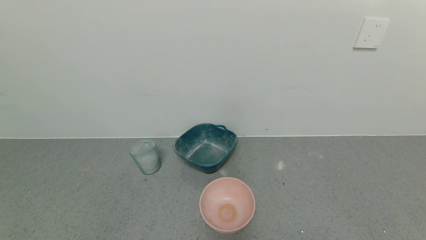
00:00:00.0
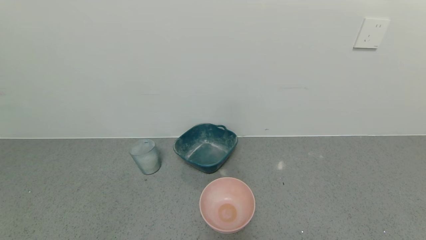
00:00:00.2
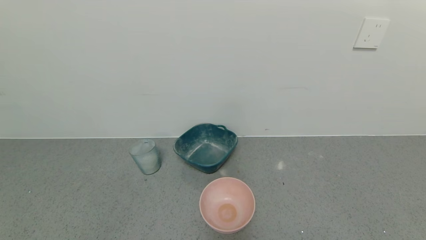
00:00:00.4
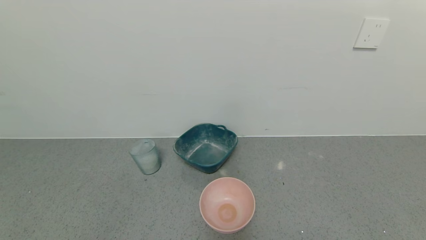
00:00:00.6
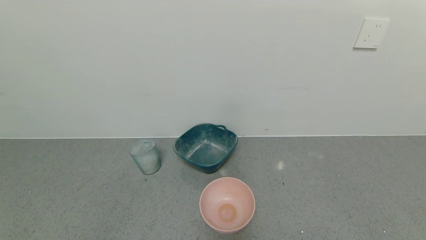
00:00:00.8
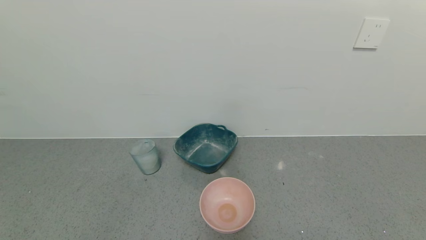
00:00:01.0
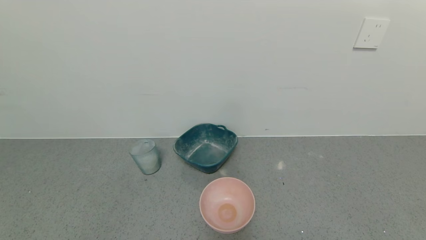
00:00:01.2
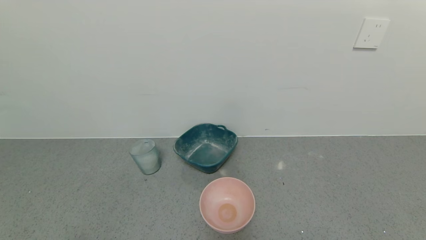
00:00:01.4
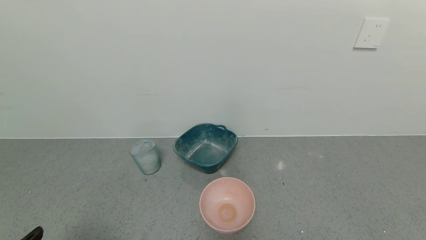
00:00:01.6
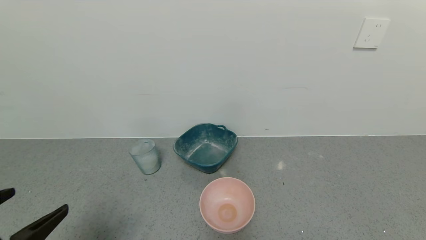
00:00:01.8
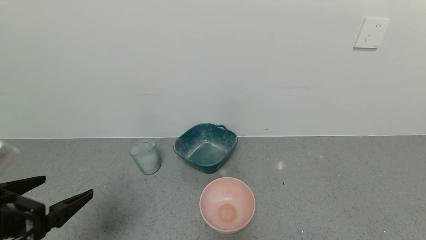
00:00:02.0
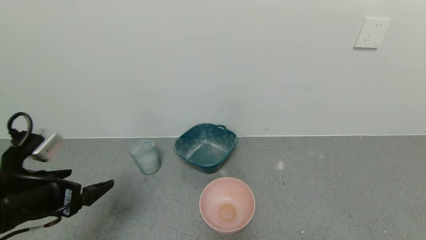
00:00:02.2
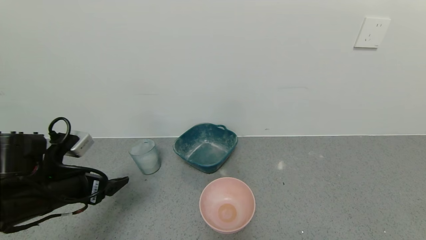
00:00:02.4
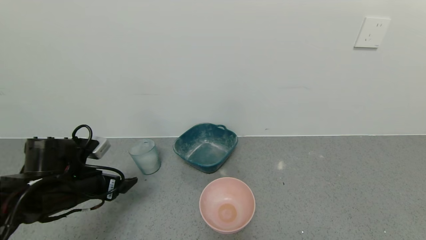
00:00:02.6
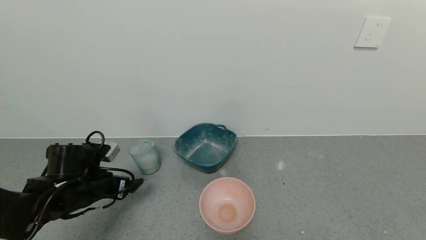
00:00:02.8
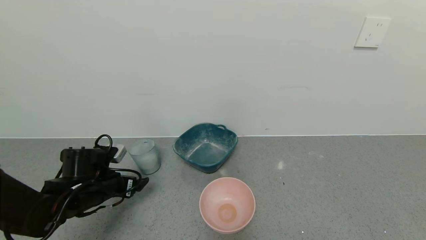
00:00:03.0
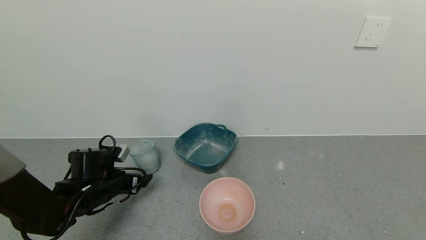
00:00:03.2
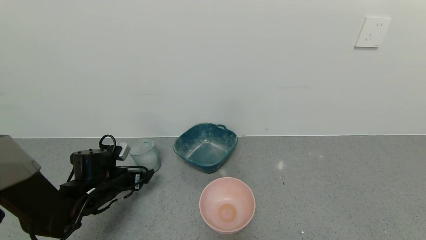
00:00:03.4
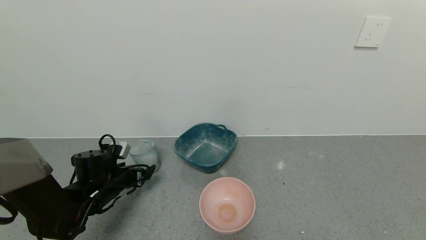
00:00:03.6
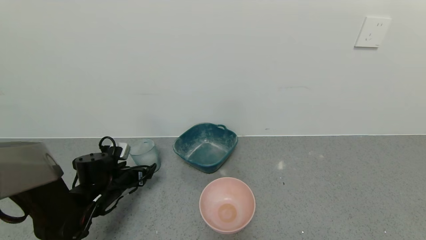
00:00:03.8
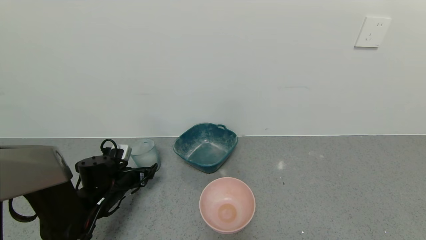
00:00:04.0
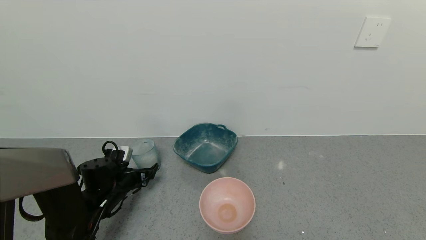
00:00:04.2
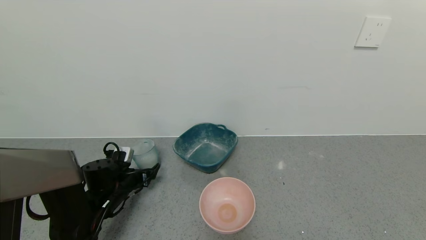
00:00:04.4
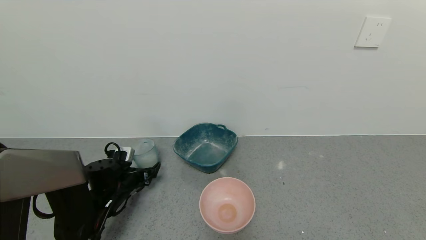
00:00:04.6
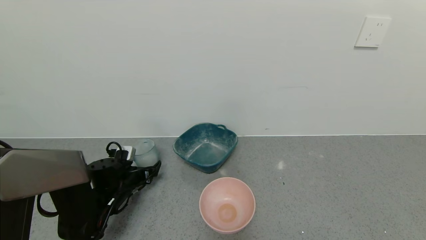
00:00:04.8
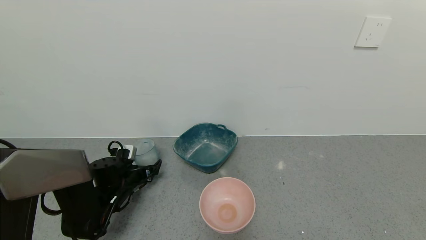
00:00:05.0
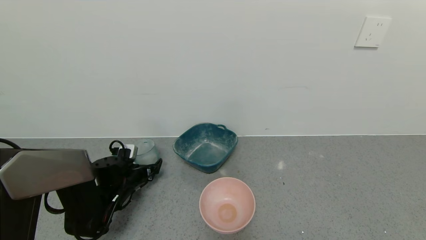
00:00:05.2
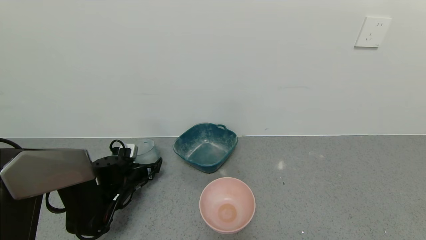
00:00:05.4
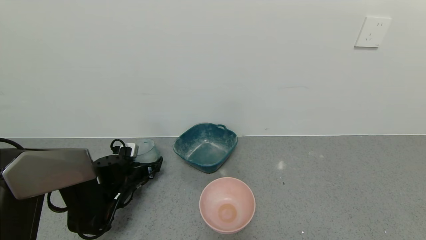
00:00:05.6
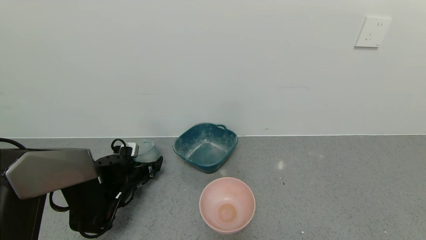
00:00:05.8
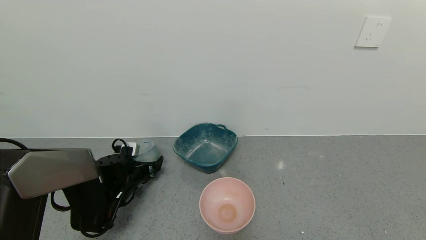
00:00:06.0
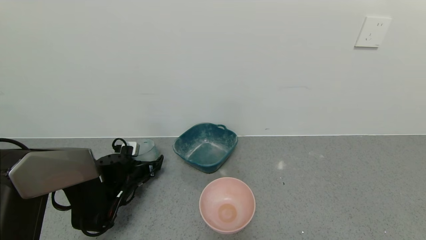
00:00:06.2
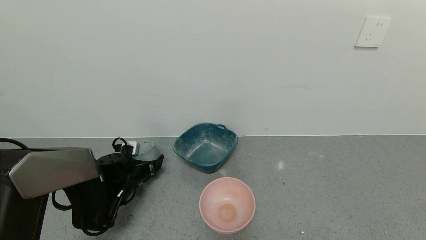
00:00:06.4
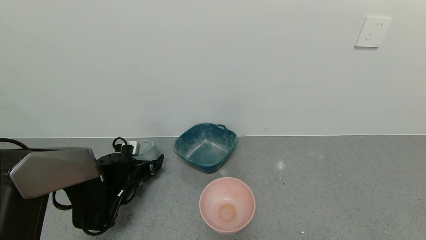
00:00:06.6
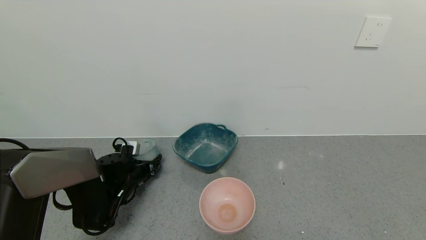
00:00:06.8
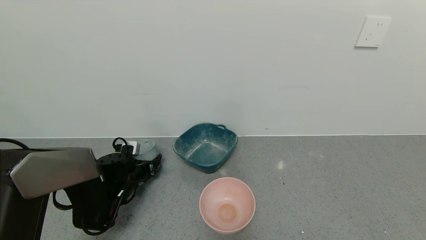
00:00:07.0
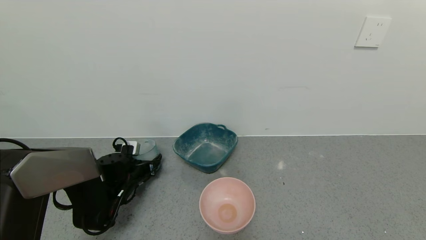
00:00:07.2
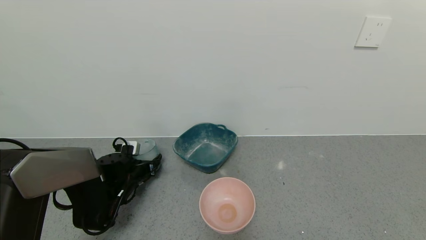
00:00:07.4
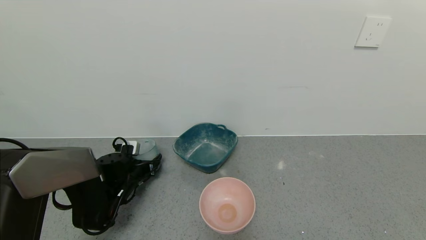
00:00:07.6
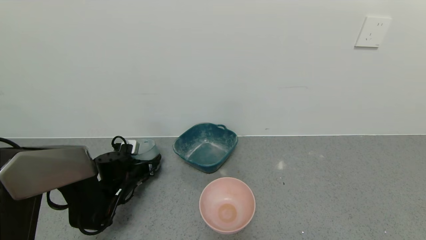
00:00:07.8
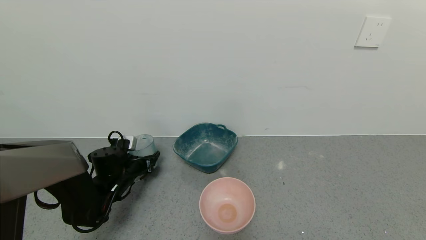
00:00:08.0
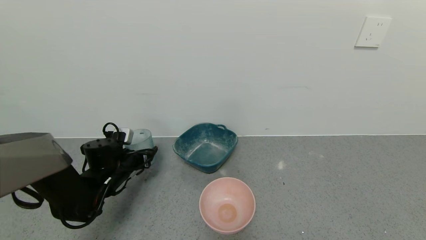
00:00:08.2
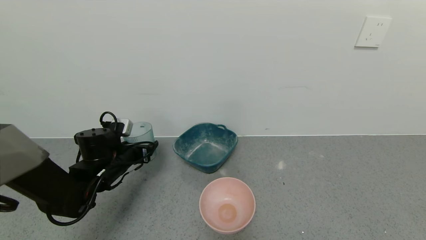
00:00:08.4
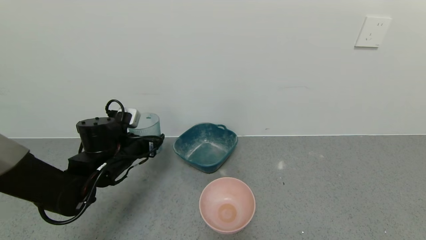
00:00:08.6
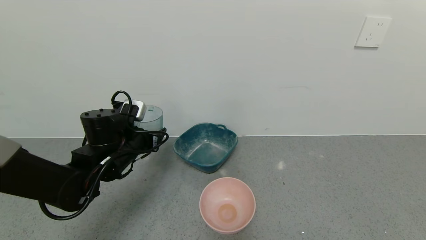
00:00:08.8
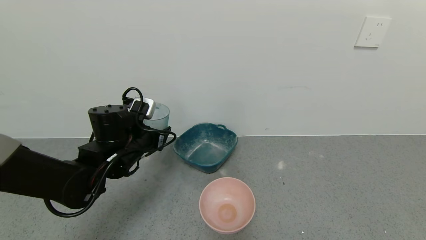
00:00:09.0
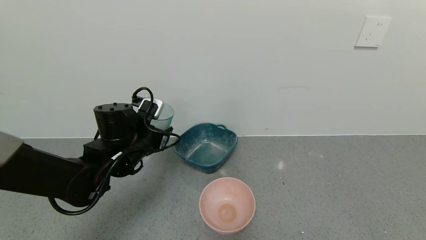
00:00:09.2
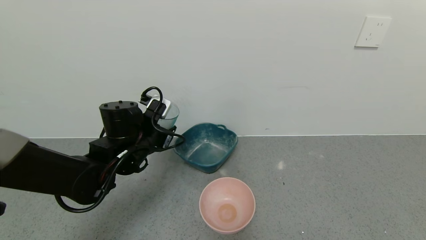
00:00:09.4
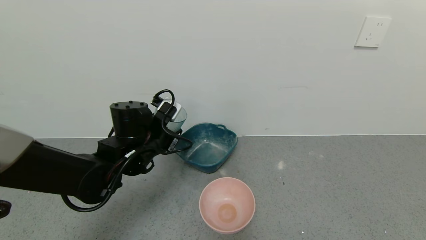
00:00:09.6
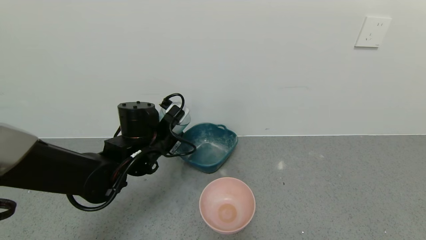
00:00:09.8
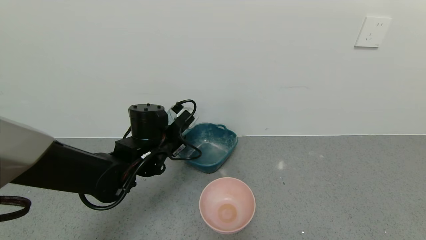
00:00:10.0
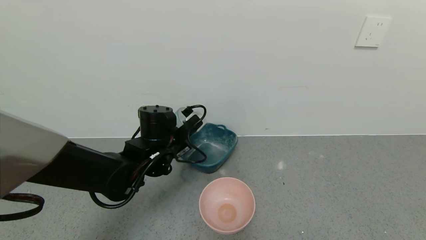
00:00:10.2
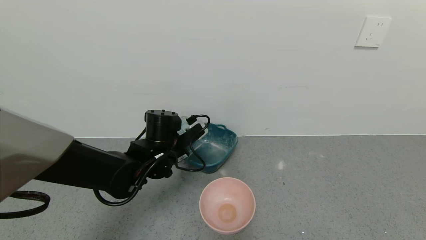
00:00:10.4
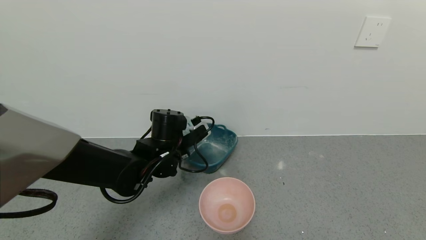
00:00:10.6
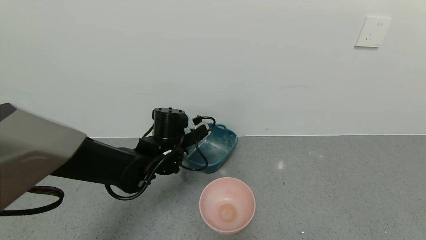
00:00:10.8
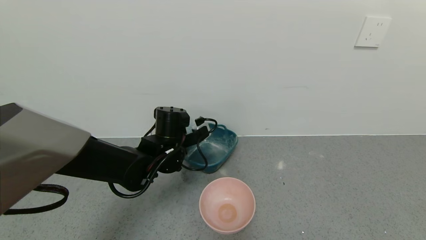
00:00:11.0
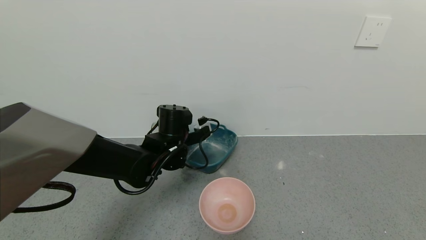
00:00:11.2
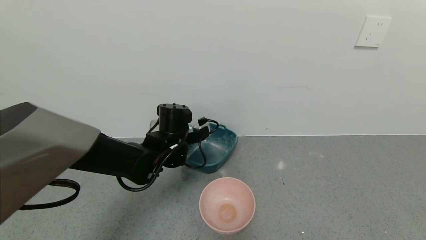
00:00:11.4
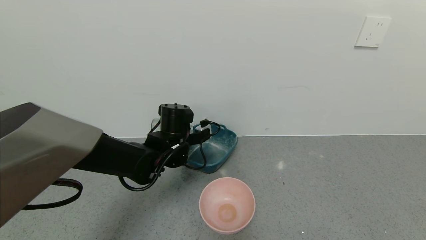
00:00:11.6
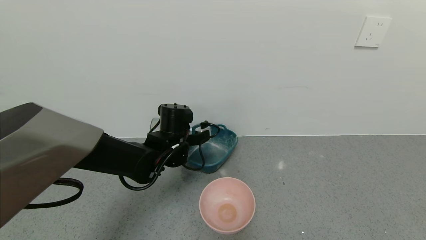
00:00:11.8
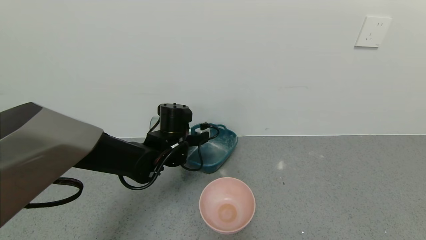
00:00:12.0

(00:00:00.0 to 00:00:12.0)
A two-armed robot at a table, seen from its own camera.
Task of the whole recording: use a gripper to pick up the cup and pour the powder into a bowl or tray.
Step, 00:00:00.0 - 00:00:07.0: Grasp the glass of powder with the left gripper.
00:00:01.6 - 00:00:03.0: The left gripper is displaced forward and downward by about 30 cm.
00:00:03.0 - 00:00:04.4: The left gripper is displaced downward by approximately 5 cm.
00:00:04.4 - 00:00:06.0: There are only small adjustments of the grippers.
00:00:06.0 - 00:00:07.6: The left gripper closes up.
00:00:07.6 - 00:00:09.0: The left gripper goes approximately 15 cm upward and to the right.
00:00:09.0 - 00:00:10.4: The left gripper travels to the right by about 5 cm.

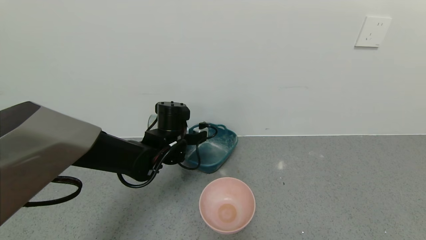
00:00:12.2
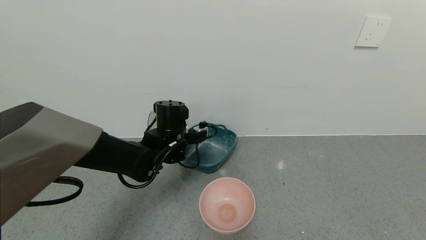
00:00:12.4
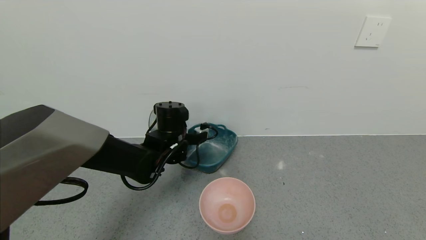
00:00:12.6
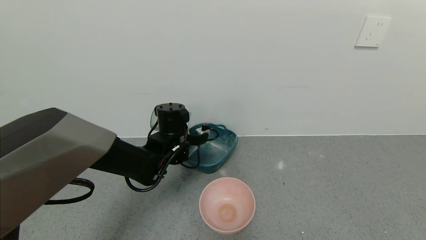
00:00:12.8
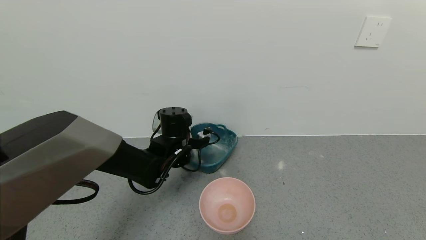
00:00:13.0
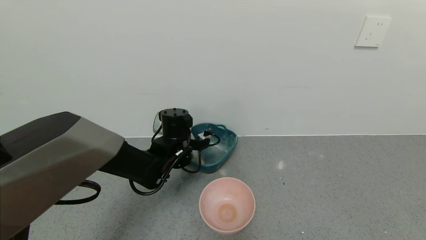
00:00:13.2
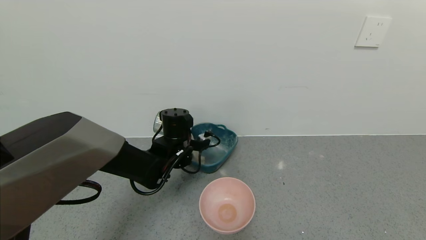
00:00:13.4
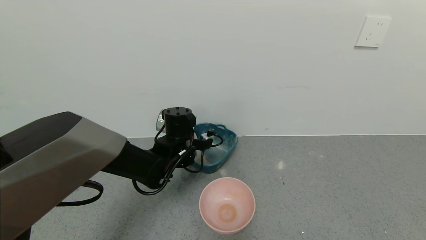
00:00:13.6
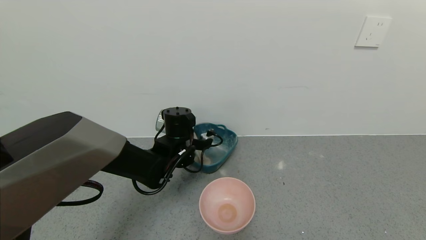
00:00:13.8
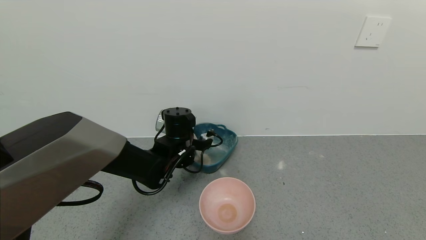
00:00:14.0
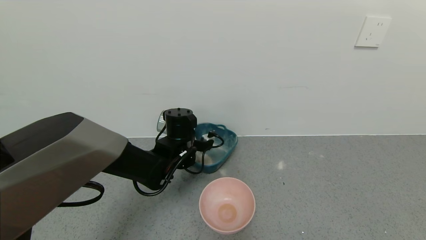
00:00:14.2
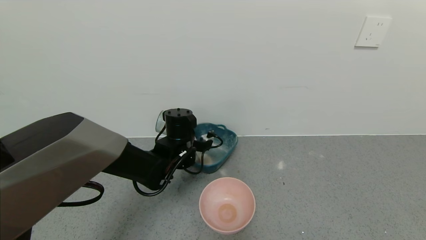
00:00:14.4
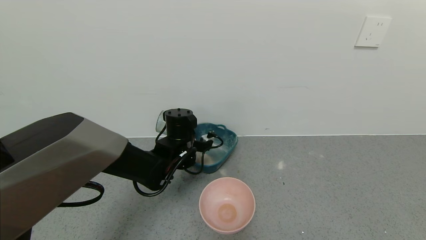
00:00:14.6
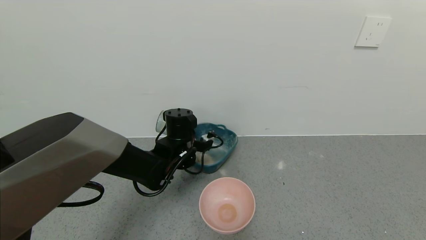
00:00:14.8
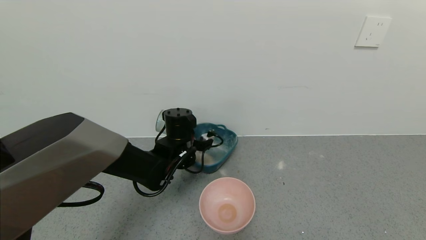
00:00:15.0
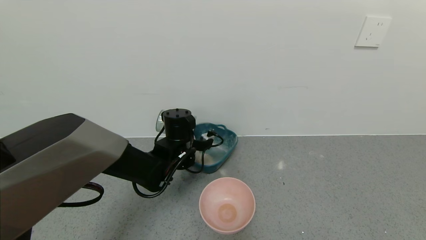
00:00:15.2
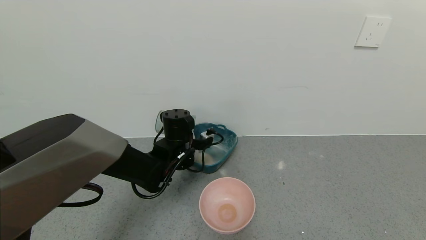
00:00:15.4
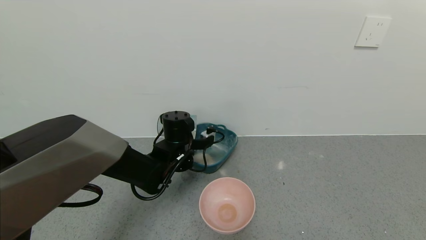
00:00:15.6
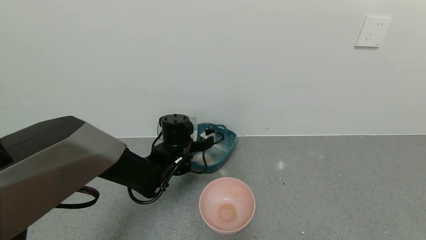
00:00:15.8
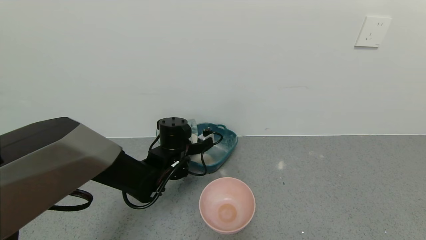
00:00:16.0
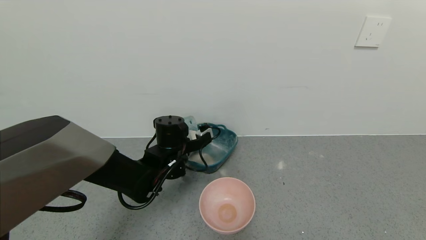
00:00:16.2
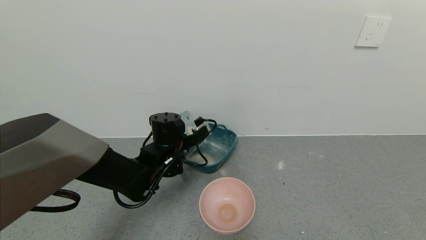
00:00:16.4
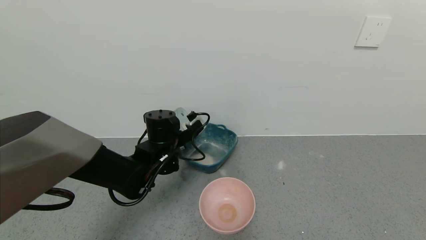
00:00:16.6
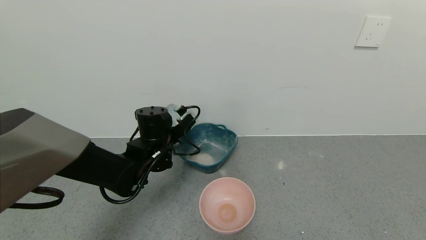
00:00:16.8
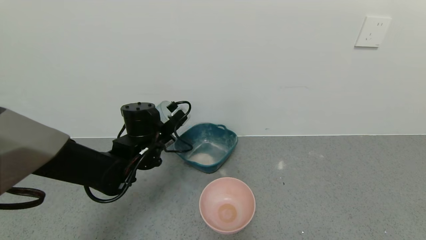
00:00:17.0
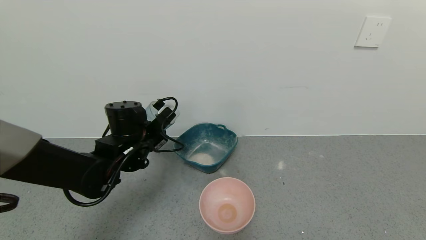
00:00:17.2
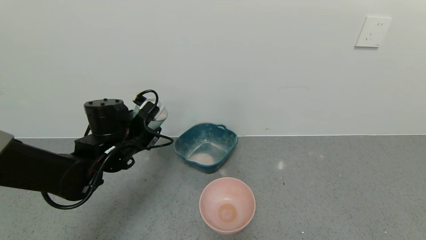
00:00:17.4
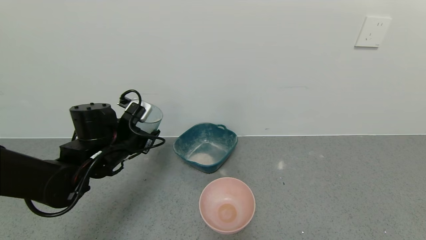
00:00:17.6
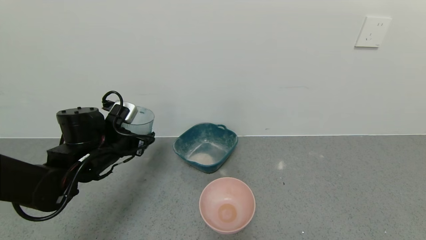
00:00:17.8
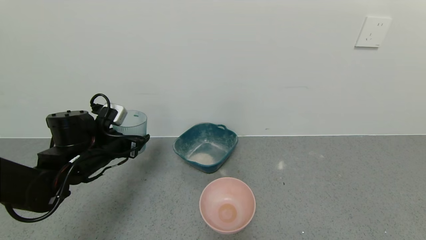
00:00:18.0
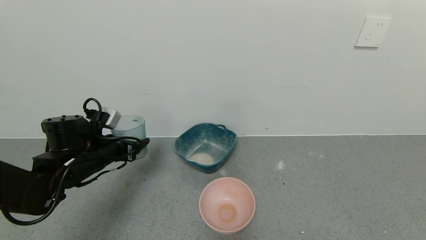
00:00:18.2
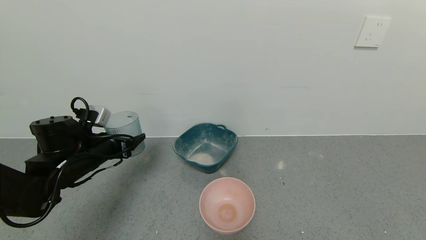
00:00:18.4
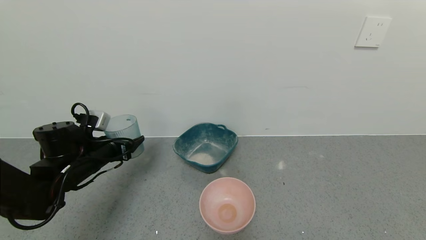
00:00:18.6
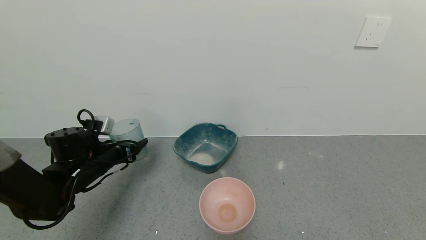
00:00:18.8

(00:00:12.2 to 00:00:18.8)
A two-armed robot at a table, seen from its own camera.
Task of the whole recording: use a gripper to pick up the cup and pour the powder into a bowl or tray.
Step, 00:00:12.2 - 00:00:15.8: Pour the powder into the pink bowl with the left gripper.
00:00:12.2 - 00:00:15.4: The grippers move only a little.
00:00:15.4 - 00:00:17.2: The left gripper moves to the left, approximately 10 cm.
00:00:17.2 - 00:00:18.8: The left gripper shifts about 10 cm to the left and downward.
